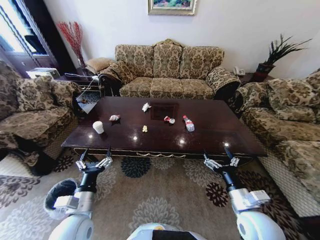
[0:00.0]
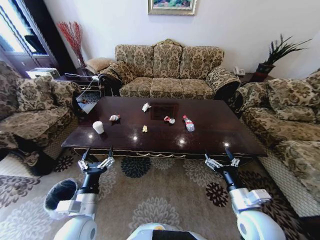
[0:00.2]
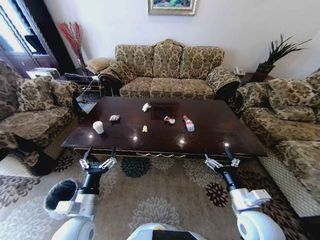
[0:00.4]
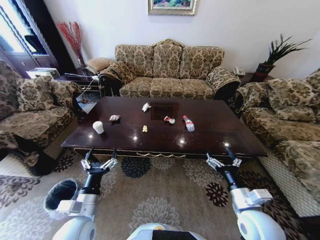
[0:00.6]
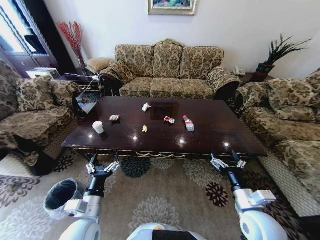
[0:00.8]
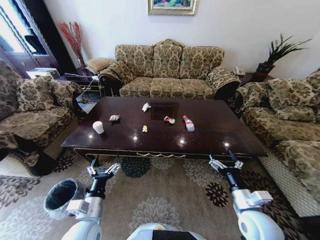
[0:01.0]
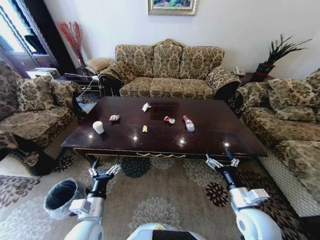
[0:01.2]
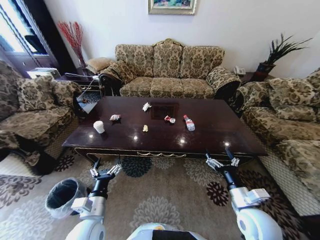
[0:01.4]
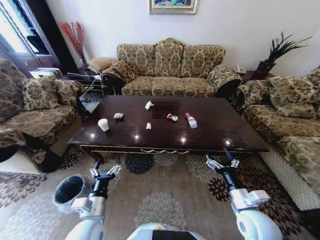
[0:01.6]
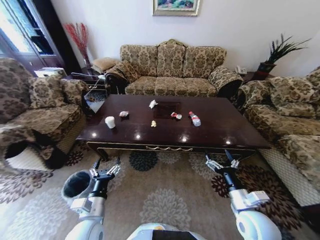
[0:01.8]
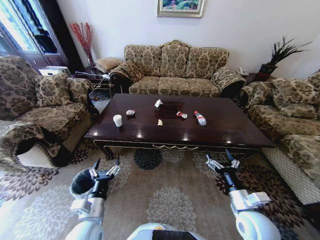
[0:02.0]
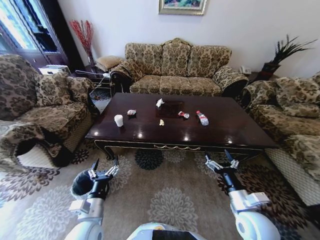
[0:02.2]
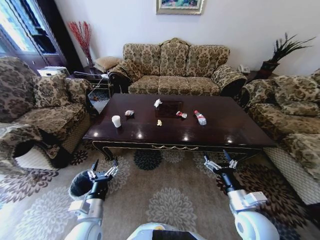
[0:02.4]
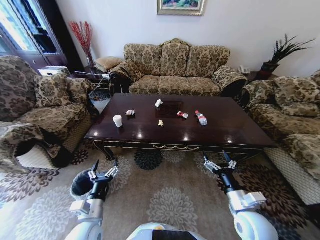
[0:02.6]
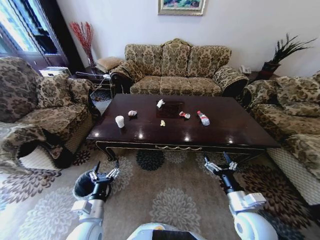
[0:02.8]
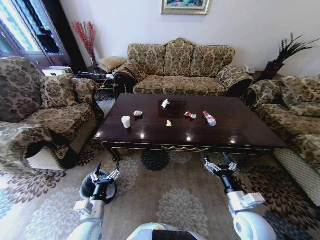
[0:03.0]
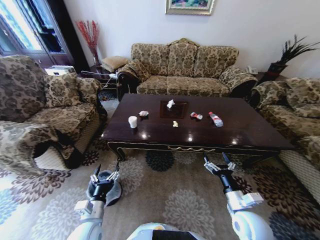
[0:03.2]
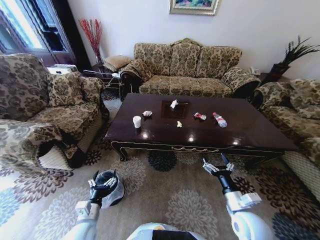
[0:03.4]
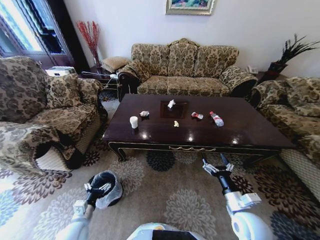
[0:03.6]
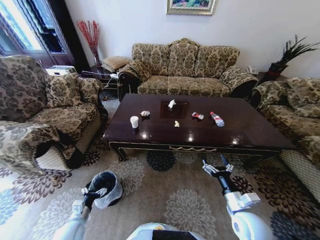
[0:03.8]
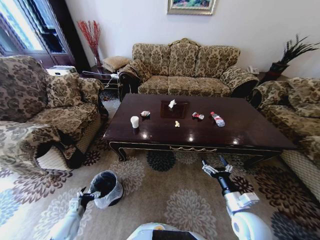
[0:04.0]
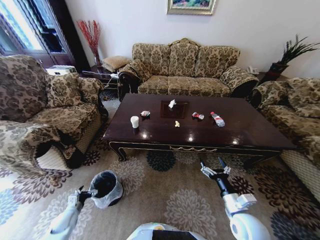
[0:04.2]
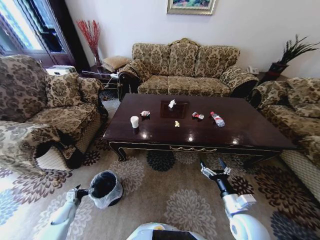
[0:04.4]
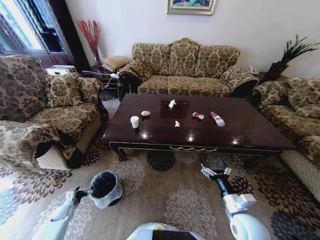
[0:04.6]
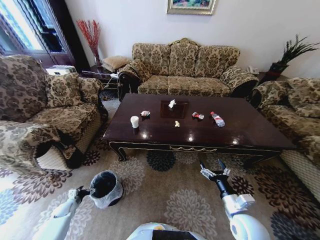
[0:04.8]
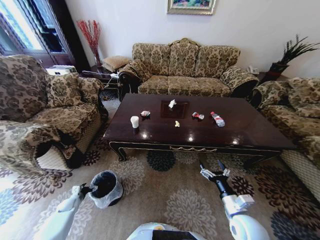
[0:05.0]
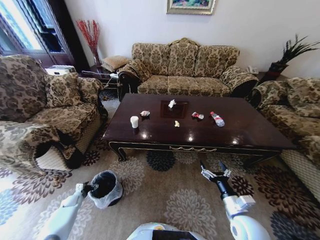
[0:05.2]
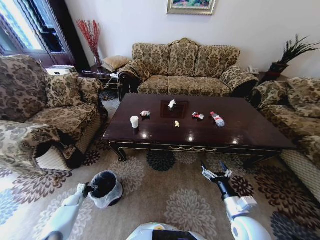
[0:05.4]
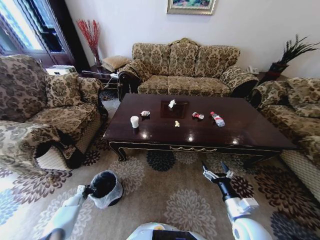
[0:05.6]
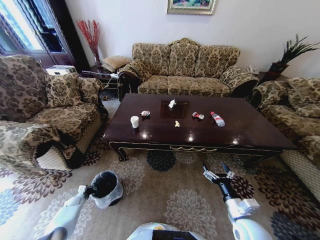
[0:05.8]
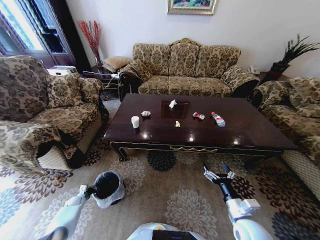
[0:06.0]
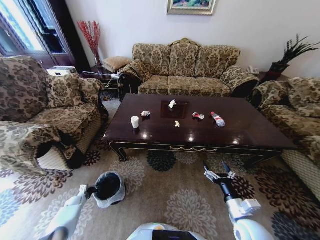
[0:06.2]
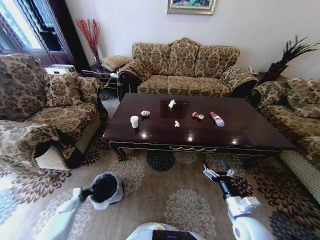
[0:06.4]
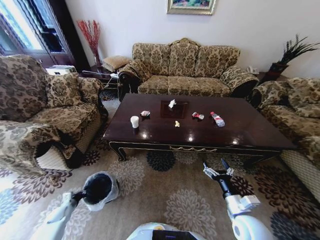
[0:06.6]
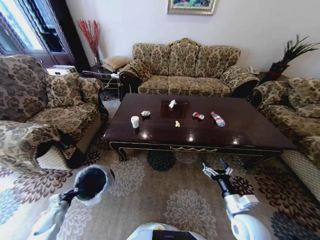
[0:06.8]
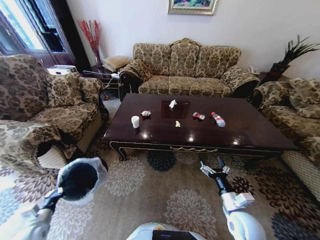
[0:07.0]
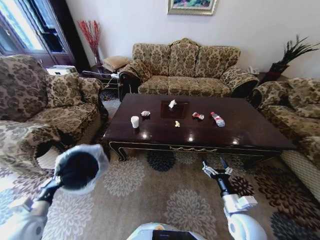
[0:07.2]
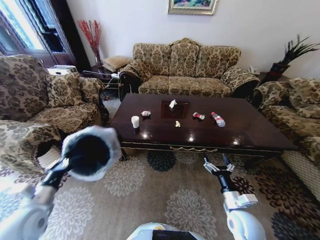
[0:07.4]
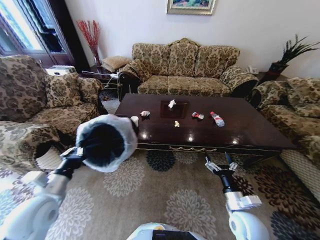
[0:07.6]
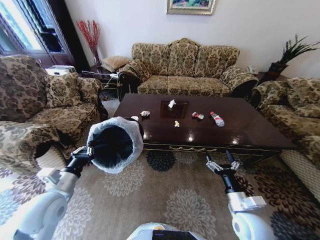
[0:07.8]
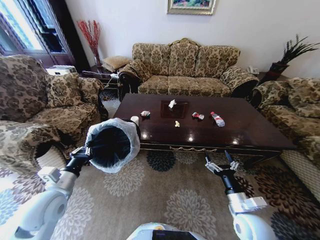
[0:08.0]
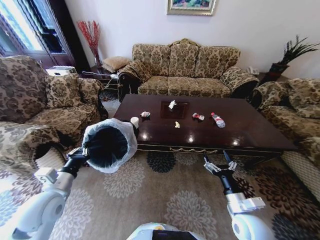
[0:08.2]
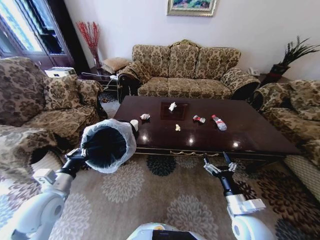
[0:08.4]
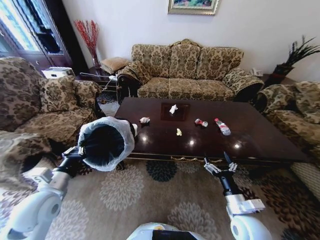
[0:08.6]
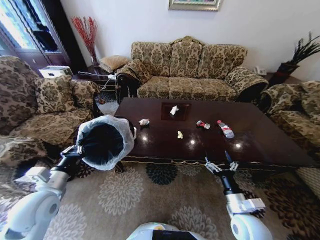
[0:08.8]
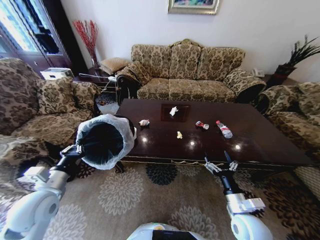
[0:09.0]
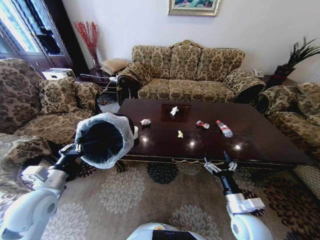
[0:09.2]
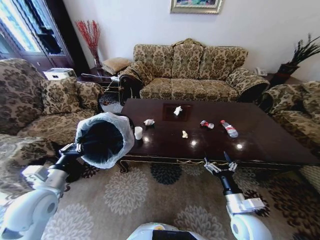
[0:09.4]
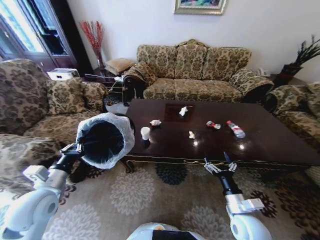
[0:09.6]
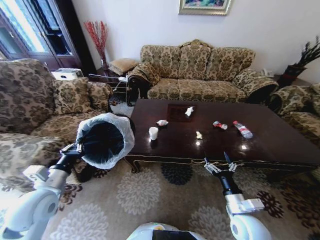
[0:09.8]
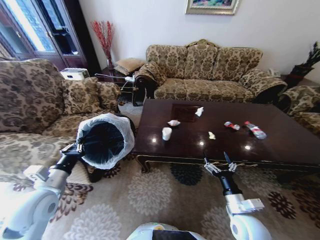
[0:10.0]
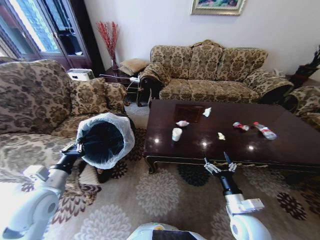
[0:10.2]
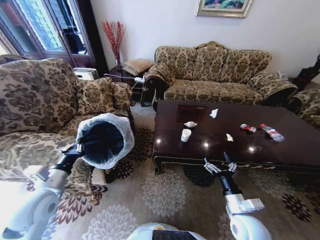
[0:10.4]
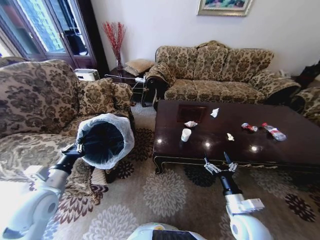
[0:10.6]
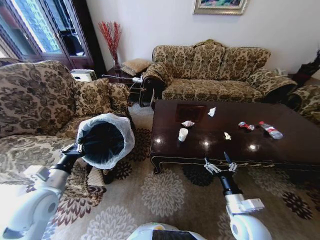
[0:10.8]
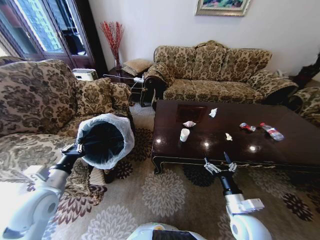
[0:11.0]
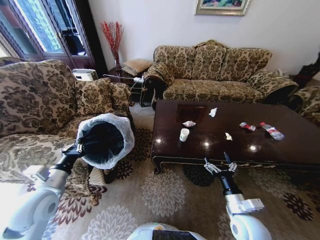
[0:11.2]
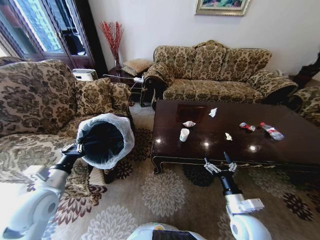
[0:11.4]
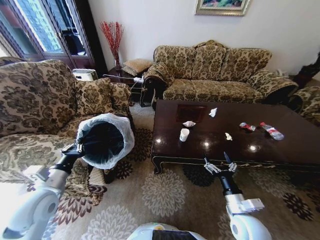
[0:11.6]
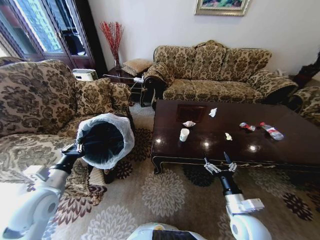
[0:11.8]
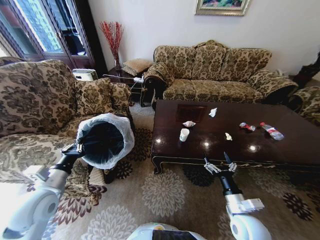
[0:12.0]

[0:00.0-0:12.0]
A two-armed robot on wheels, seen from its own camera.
Task of the whole recording: Move to the front of the table and place the trash on the table into the trash bin.
0:03.0 to 0:04.4: The left gripper moves to the left and downward, about 35 cm.
0:04.4 to 0:06.0: The left gripper is displaced downward and forward by roughly 10 cm, and closes.
0:06.0 to 0:07.6: The left gripper travels upward and to the right by some 40 cm.
0:10.4 to 0:12.0: Neither gripper changes place.

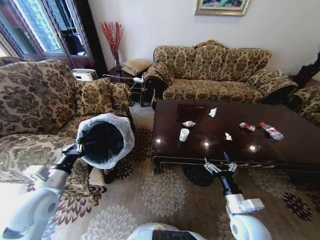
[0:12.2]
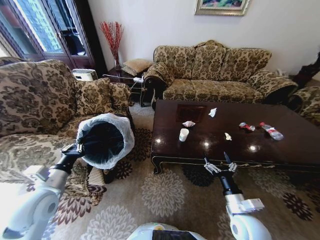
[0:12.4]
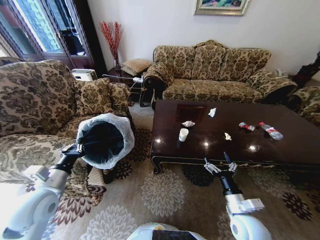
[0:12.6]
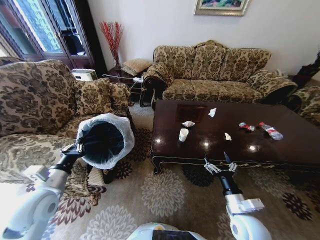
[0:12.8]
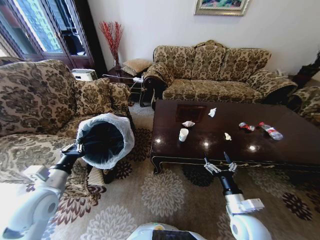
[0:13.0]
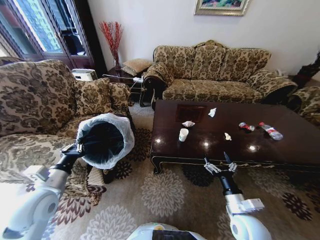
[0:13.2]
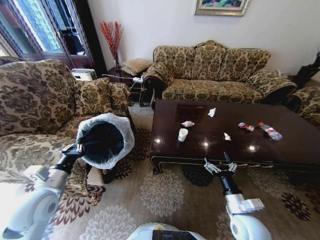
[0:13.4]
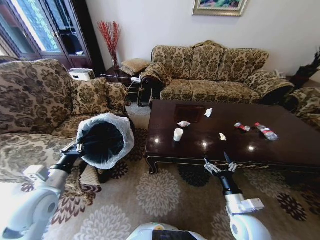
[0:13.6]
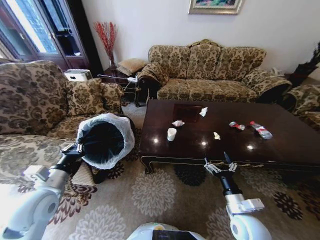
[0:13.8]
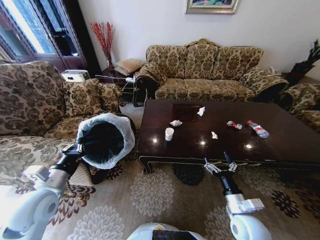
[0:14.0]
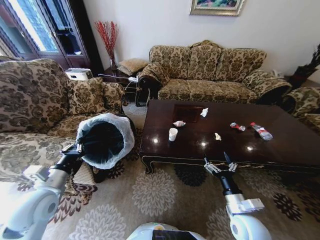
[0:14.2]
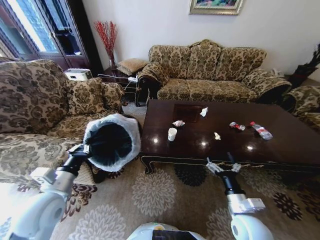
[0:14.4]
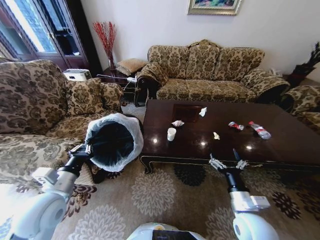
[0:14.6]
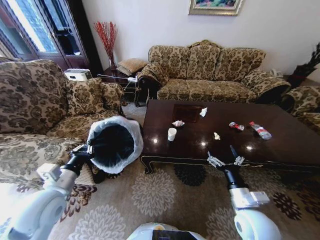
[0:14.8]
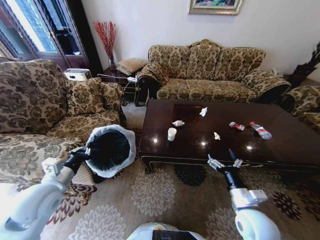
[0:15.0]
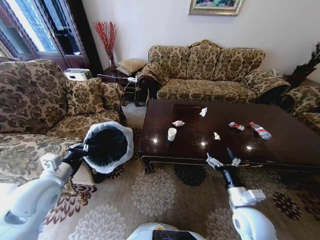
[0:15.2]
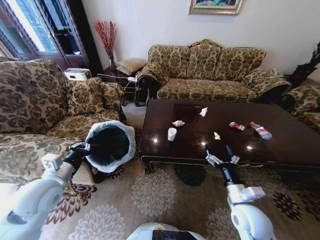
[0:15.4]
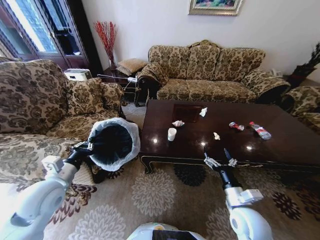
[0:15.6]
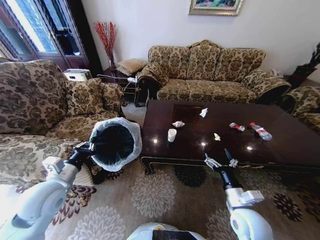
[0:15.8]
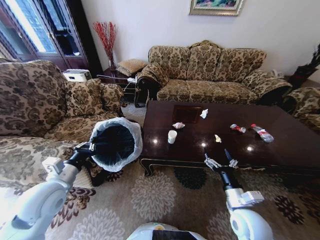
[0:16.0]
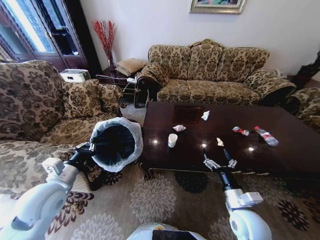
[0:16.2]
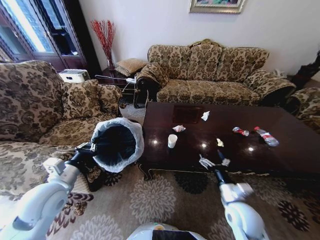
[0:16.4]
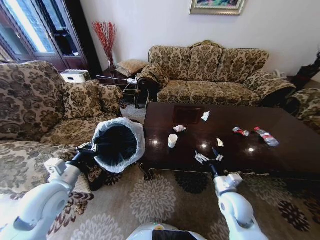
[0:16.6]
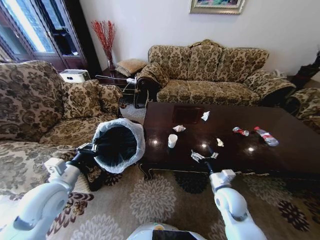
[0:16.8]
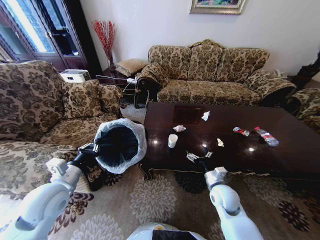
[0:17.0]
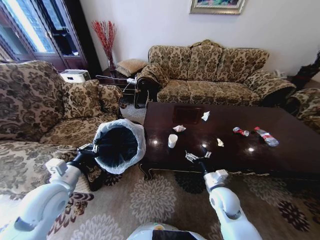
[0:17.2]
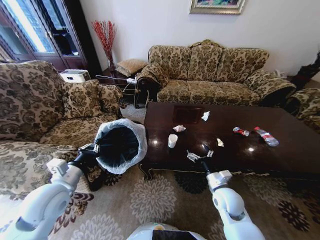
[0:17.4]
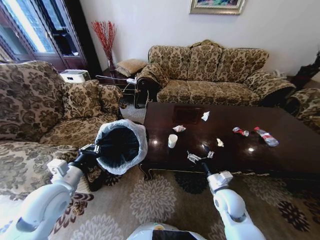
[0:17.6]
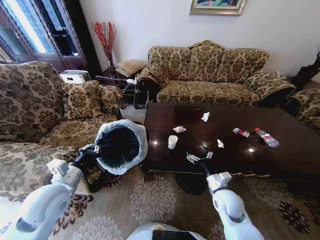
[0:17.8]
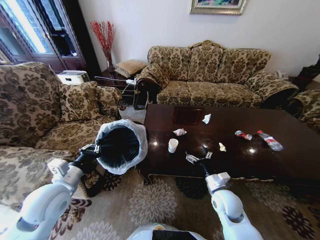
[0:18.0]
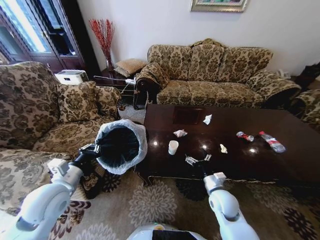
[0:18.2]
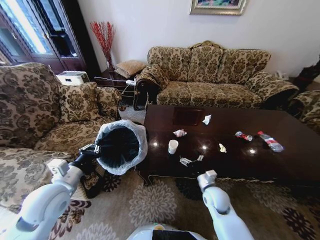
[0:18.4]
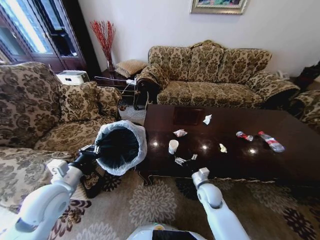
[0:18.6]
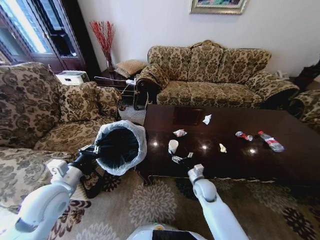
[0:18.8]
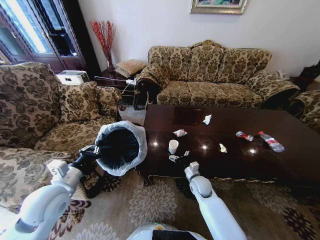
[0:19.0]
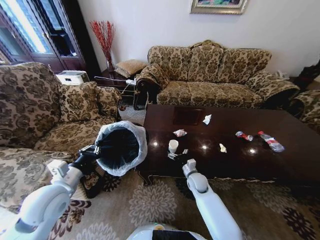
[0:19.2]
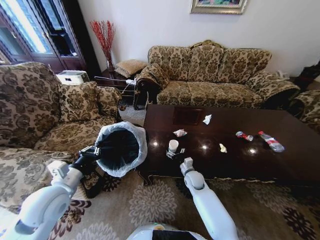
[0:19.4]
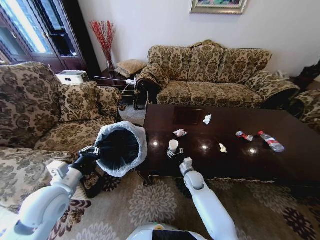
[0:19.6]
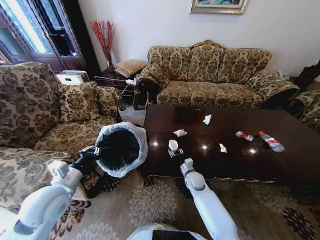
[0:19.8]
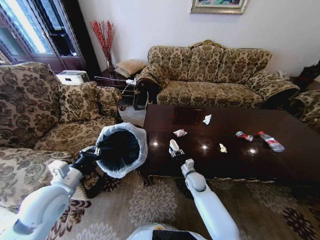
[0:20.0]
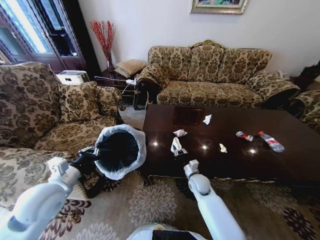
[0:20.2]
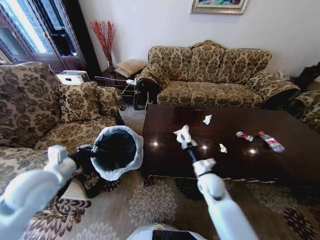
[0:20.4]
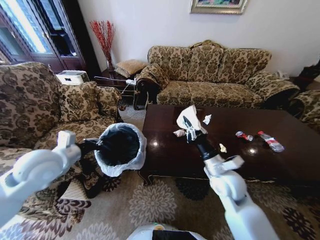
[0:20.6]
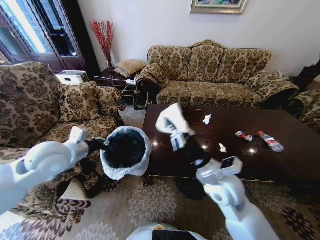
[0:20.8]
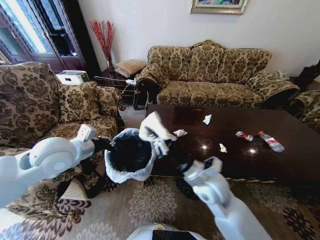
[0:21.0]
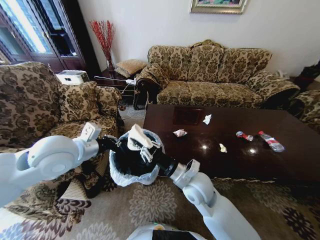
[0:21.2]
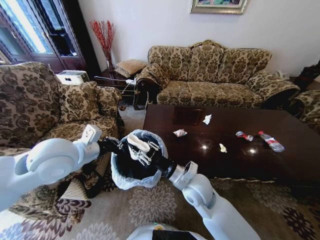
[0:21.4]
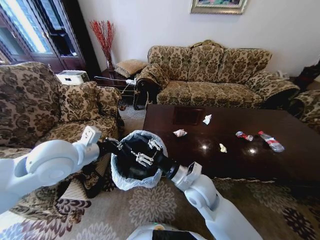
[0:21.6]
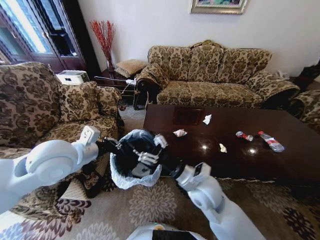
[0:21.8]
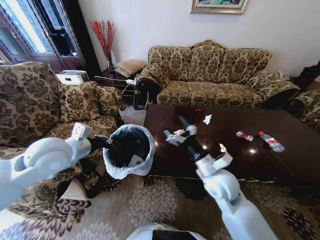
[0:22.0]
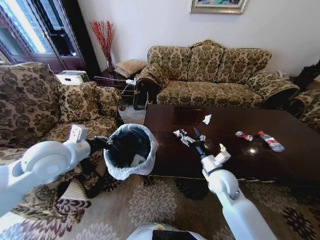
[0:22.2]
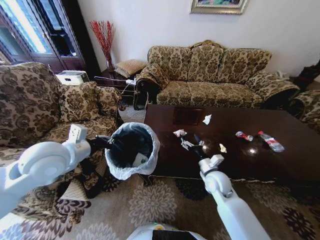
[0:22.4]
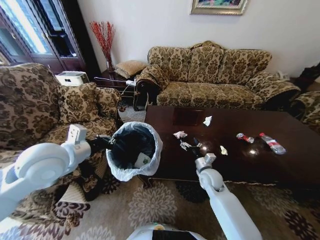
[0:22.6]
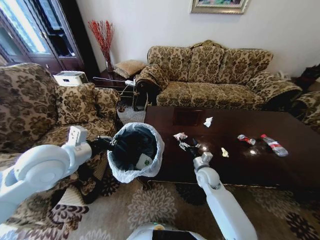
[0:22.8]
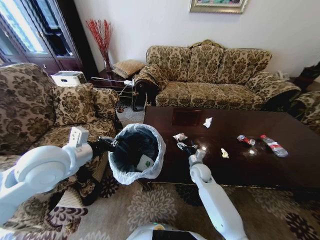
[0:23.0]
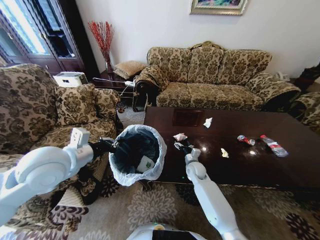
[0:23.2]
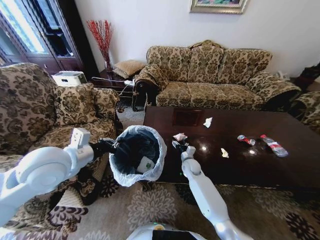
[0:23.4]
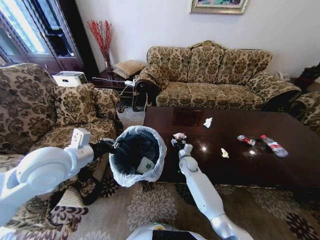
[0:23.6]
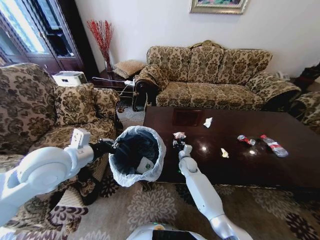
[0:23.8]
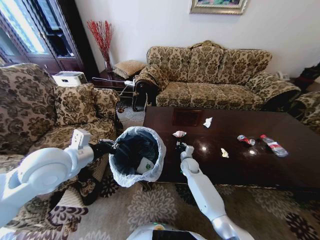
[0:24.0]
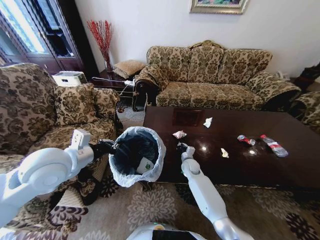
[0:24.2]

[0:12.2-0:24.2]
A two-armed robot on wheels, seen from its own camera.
Task of the whole recording: Move to the front of the table and place the trash on the table into the trash bin.
0:13.8 to 0:15.2: The grippers make only small movements.
0:15.2 to 0:16.6: The right gripper shifts roughly 5 cm forward.
0:18.2 to 0:19.8: The right gripper heads forward, downward and to the left, covering approximately 15 cm, and closes.
0:19.8 to 0:21.2: The left gripper travels upward, forward and to the right by approximately 15 cm. Meanwhile the right gripper heads upward and backward, covering approximately 25 cm, and closes.
0:21.2 to 0:22.6: The right gripper travels downward, to the right and forward by approximately 20 cm, and opens its fingers.
0:22.6 to 0:24.2: The right gripper shifts about 15 cm forward, downward and to the left, and closes.
